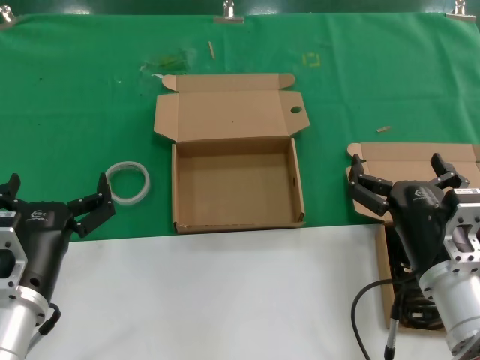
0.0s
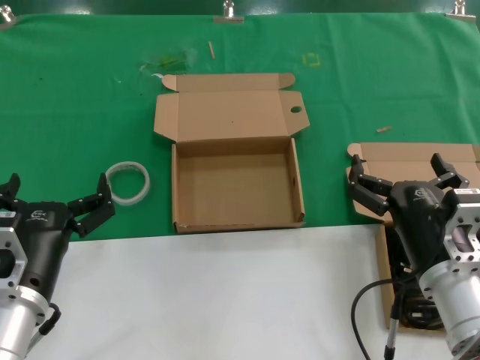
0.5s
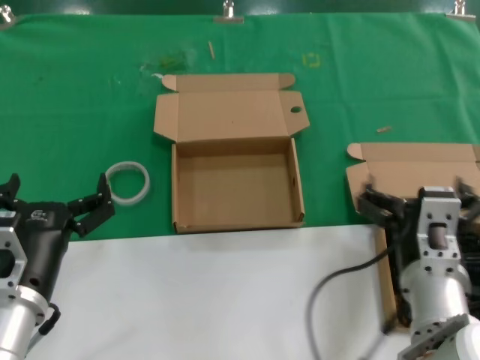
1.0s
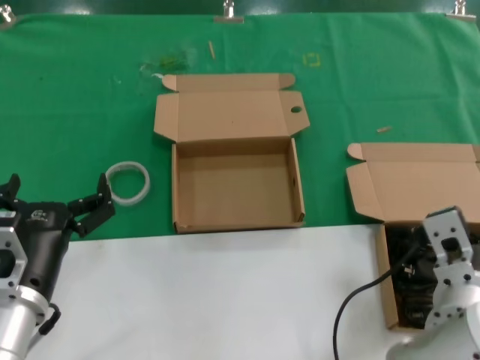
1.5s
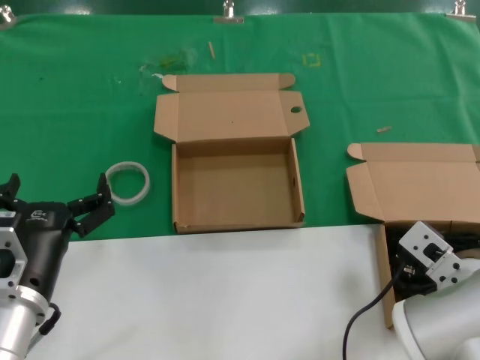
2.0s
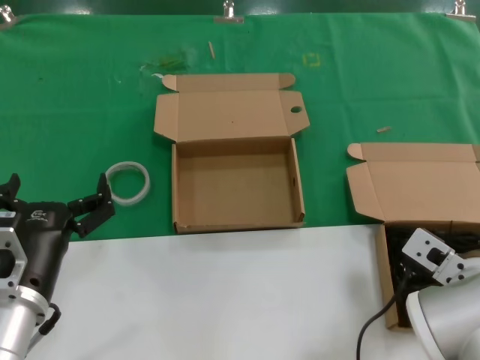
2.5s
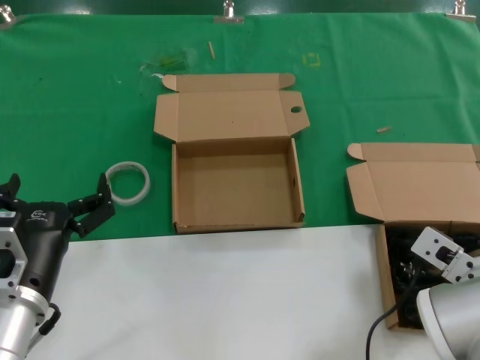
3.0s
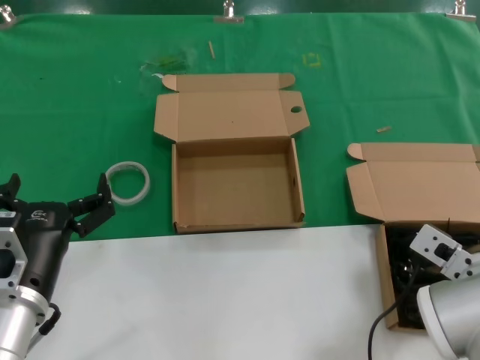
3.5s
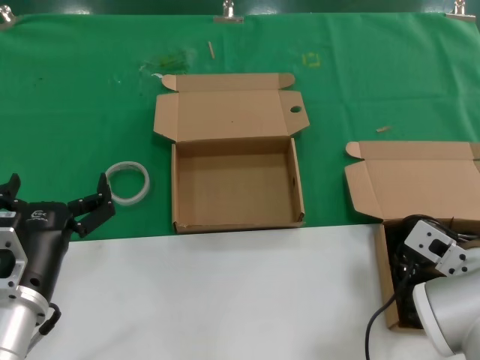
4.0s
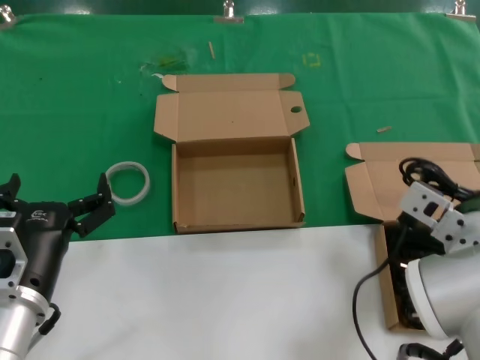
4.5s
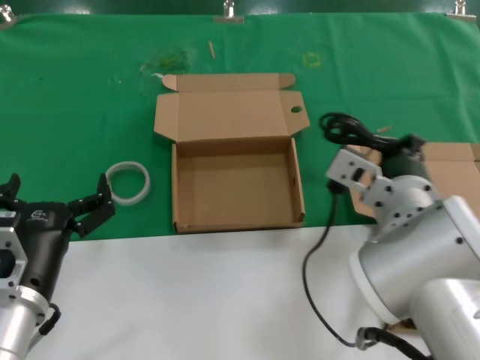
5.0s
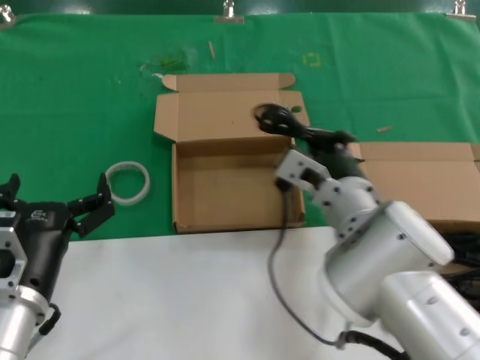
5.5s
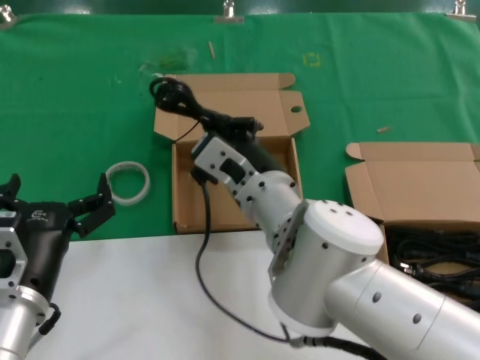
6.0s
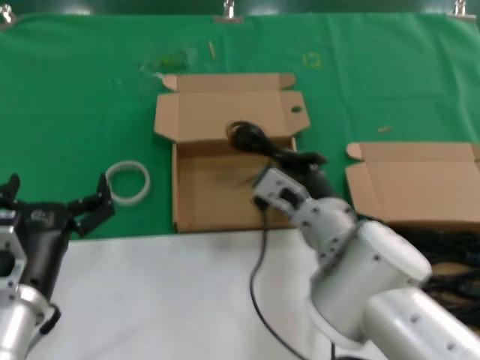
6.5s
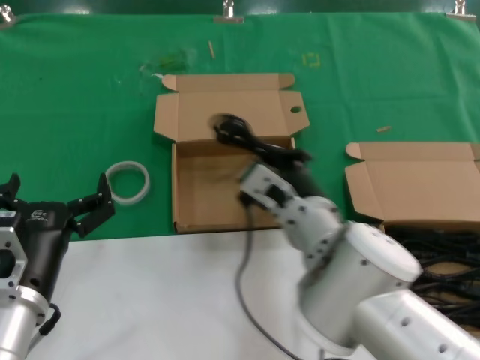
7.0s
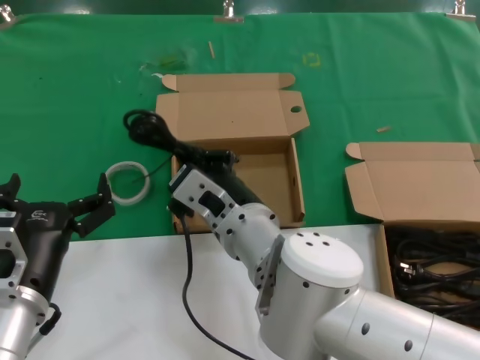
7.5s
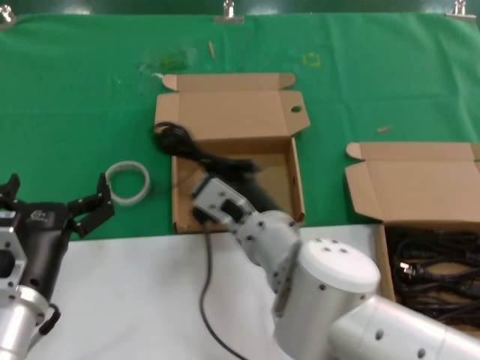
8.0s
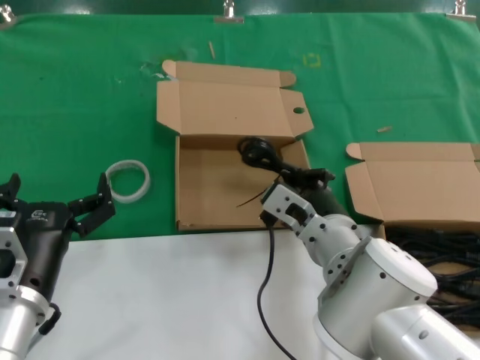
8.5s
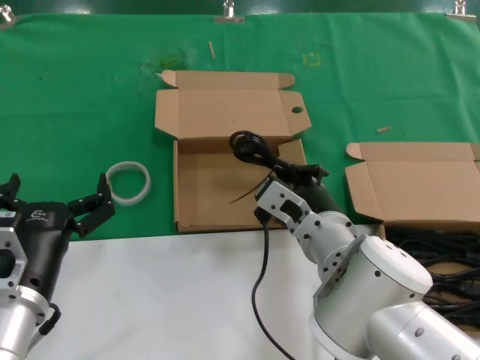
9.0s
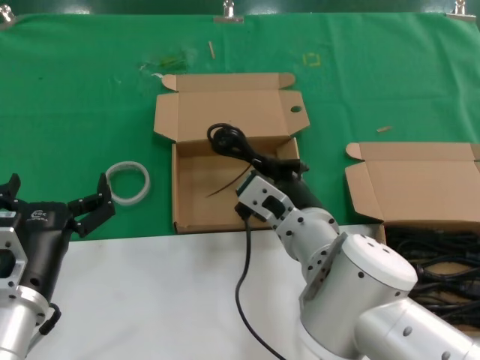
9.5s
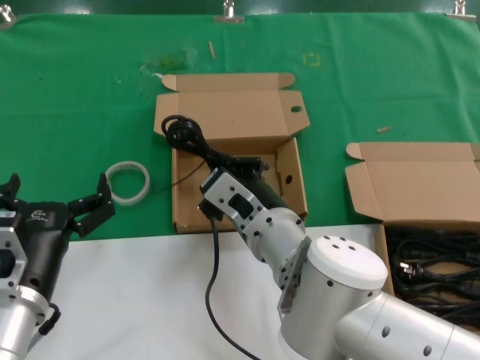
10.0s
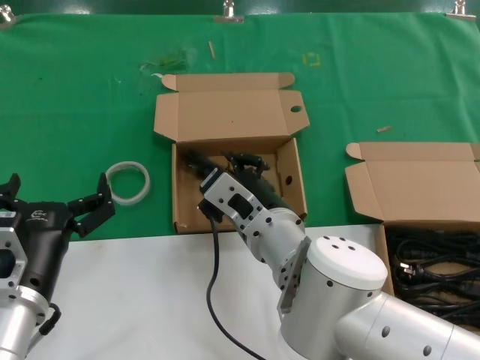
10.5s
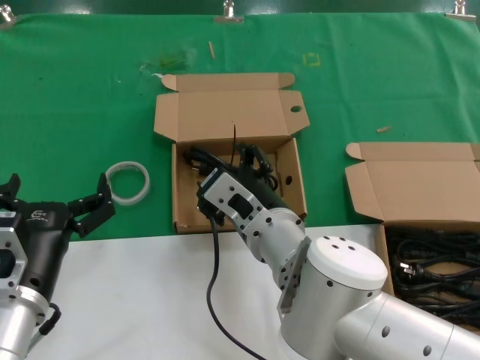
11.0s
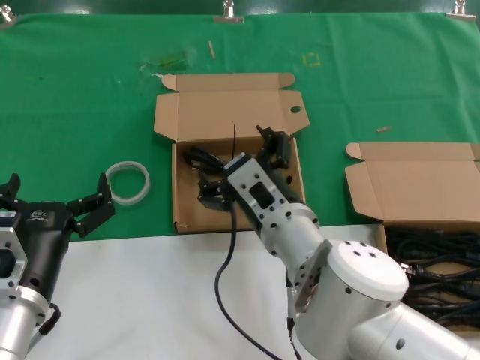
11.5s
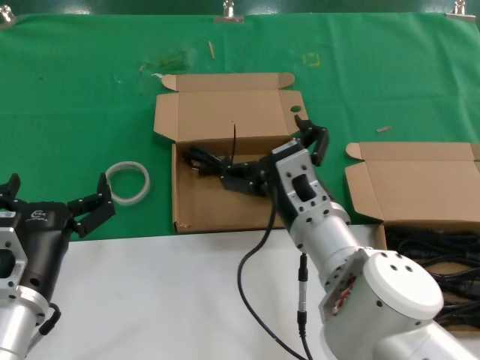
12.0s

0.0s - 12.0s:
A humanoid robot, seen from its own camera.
Task of the whole recording: take the parts from the box containing them and put them into an empty box.
Step, 0.0s - 4.0s: Grasp the data cable.
Step, 4.5s - 11.0s: Place the data cable in the another box.
2.0s - 4.0s: The hands make only small movements.
4.0s - 6.0s: The right hand moves to the left, approximately 20 cm.

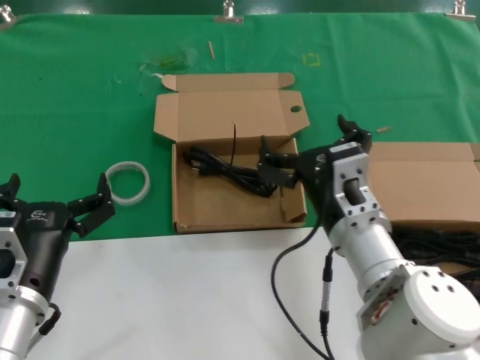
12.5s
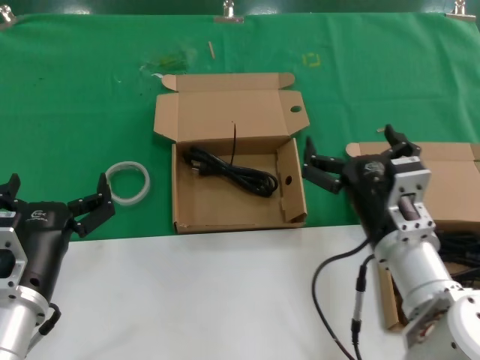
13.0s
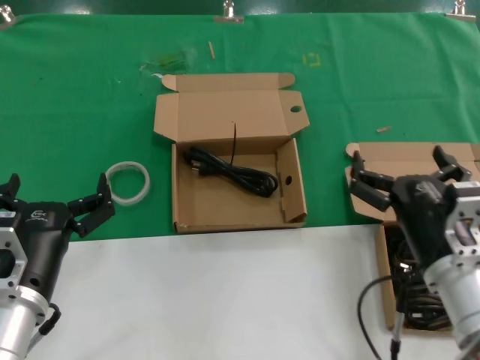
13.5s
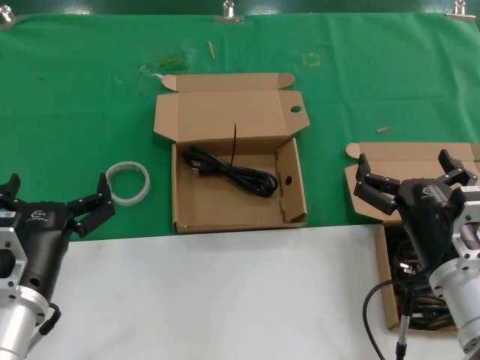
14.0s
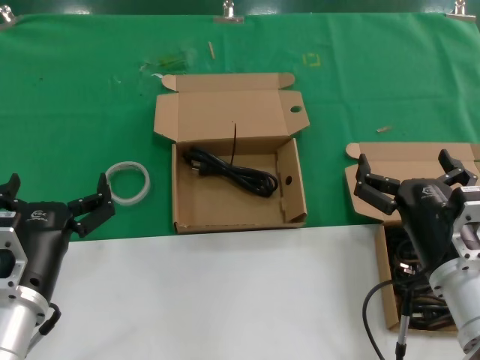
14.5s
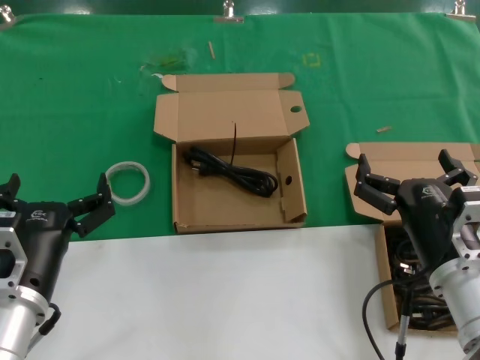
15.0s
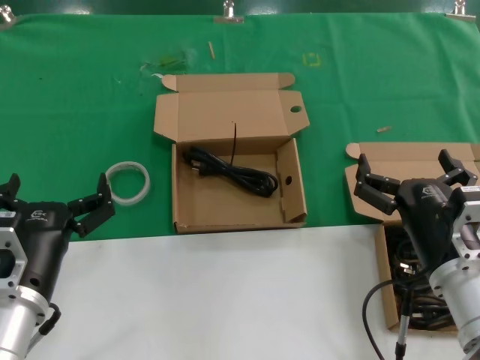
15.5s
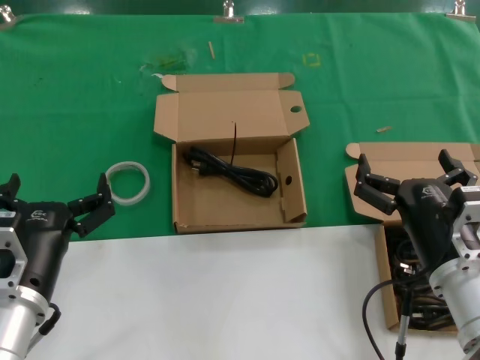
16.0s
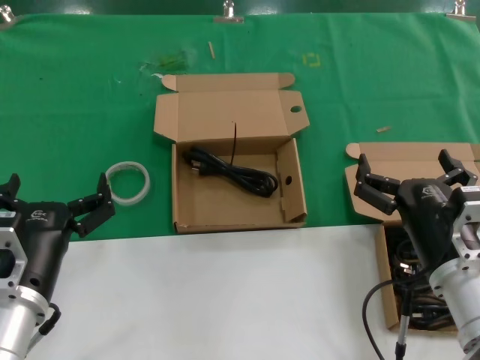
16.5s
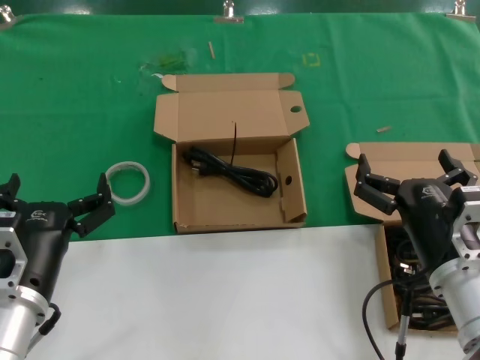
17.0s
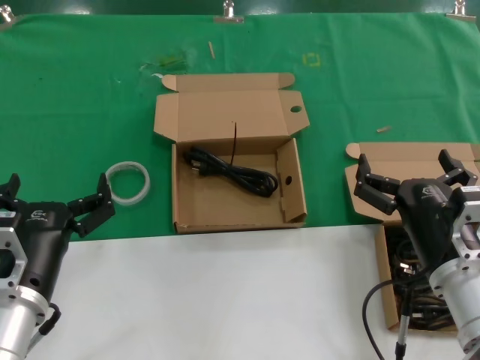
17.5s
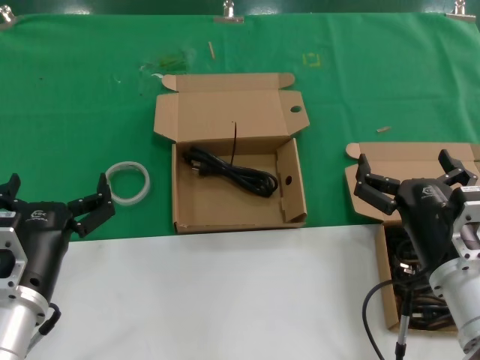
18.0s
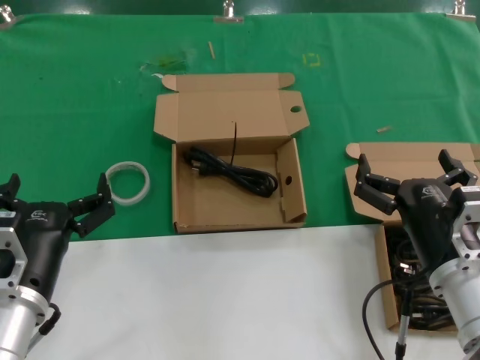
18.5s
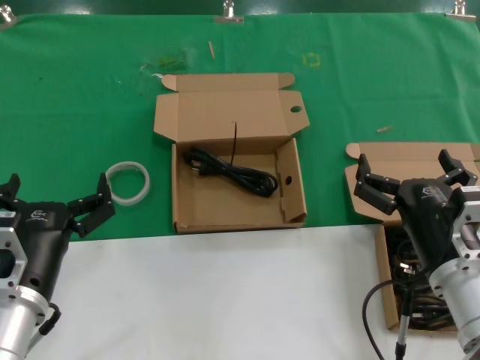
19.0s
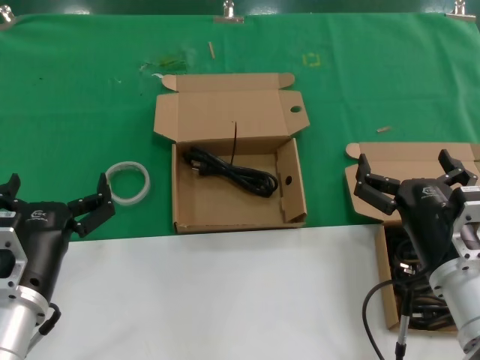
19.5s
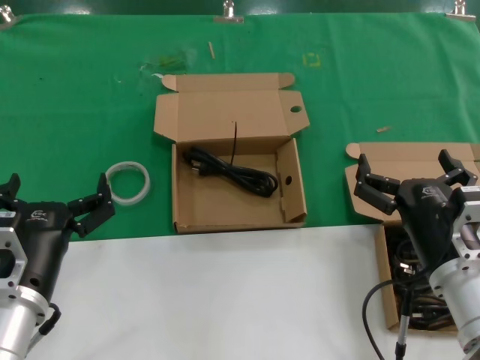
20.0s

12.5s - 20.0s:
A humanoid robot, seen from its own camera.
Task of the whole recording: take the parts from the box containing them and put them into an empty box.
12.5s - 14.5s: The right hand moves to the right and backward, some 10 cm.
14.5s - 20.0s: Both hands stay put.

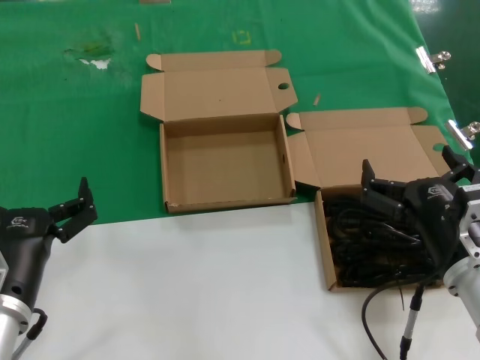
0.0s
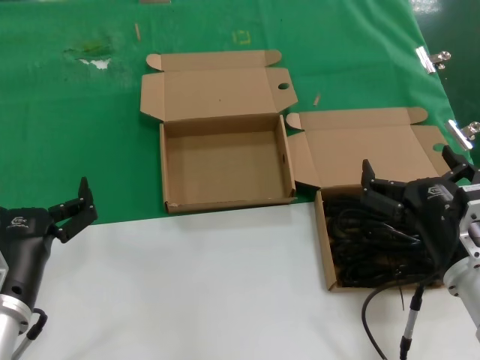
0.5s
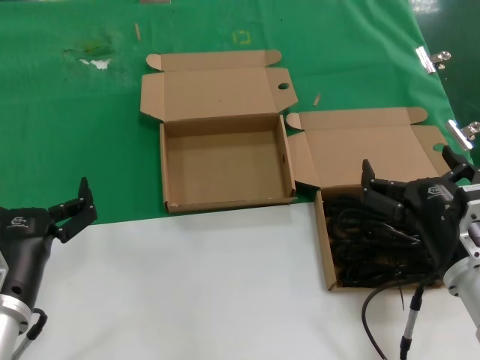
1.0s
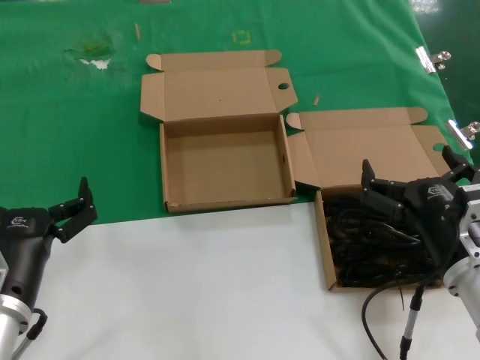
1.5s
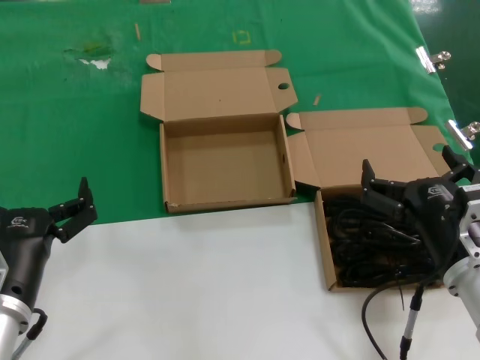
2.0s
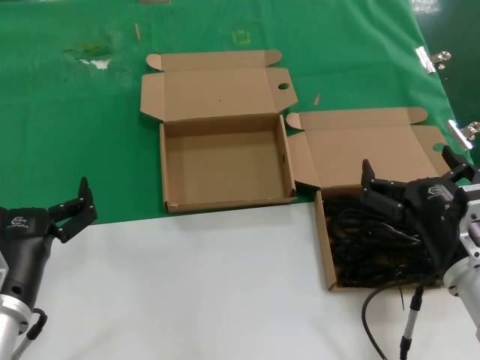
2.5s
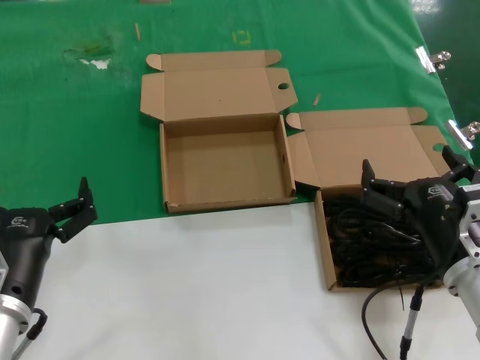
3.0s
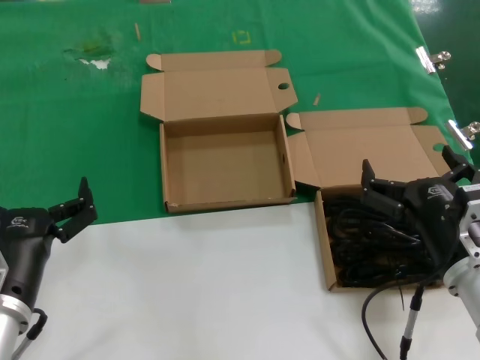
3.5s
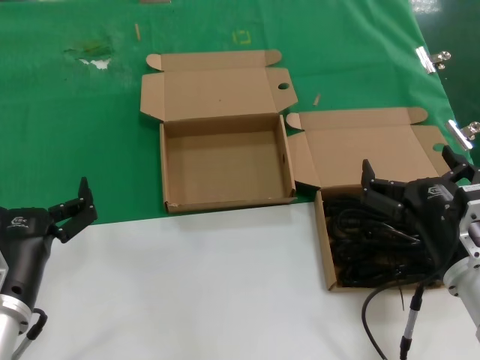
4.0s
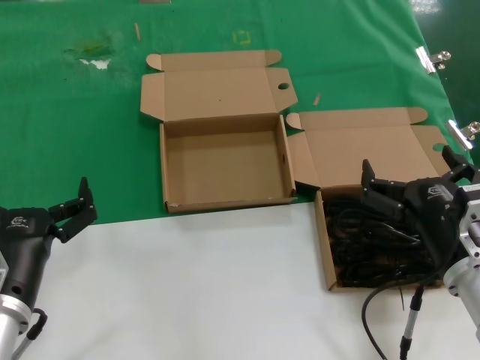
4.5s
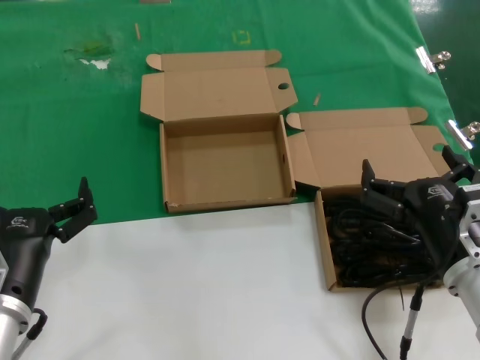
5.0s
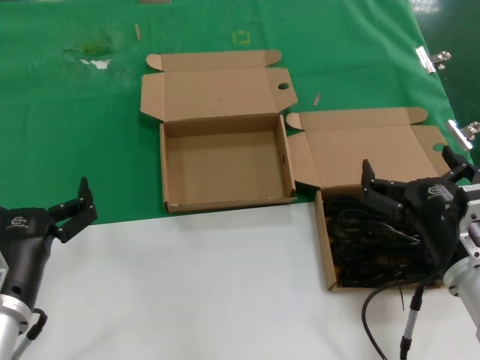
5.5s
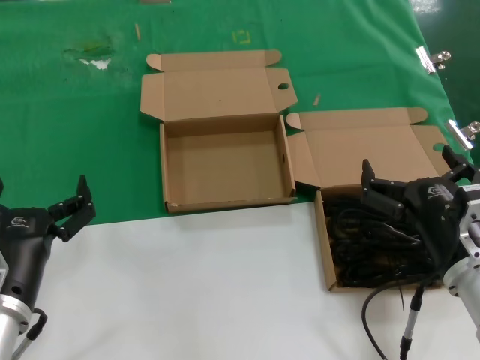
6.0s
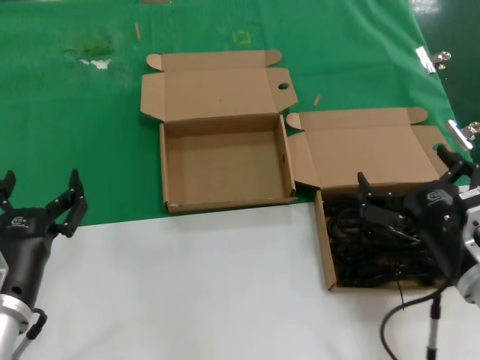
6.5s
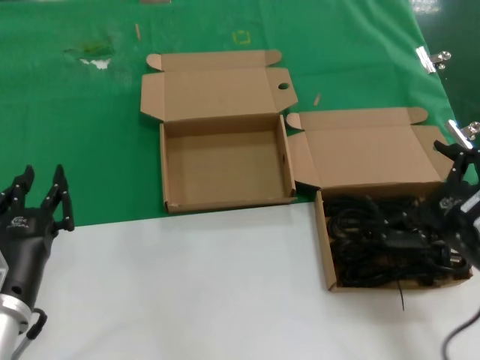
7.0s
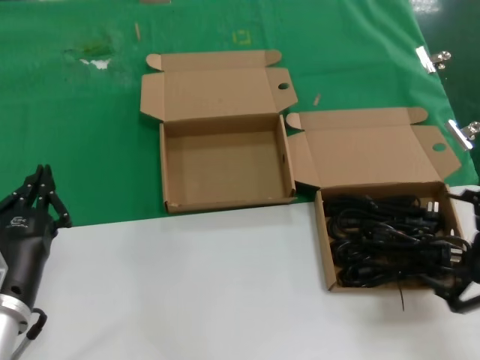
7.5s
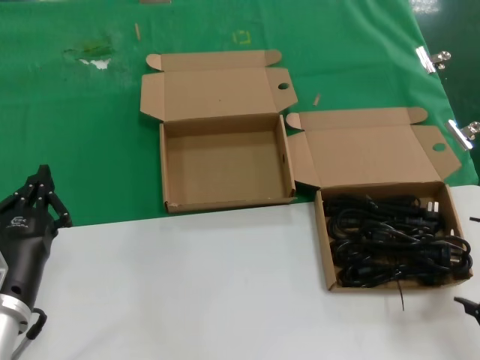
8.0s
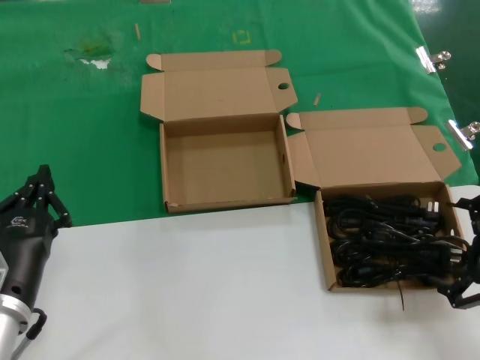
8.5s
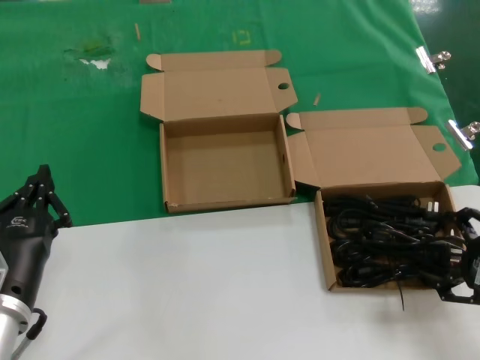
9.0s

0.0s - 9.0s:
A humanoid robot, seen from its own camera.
Task of the whole recording: take the parts from the box containing them and put them into an empty box.
0.0s - 4.5s: Both hands stay put.
4.5s - 7.0s: The right hand shifts some 5 cm upward.
7.0s - 9.0s: The right hand travels to the right by roughly 5 cm.
